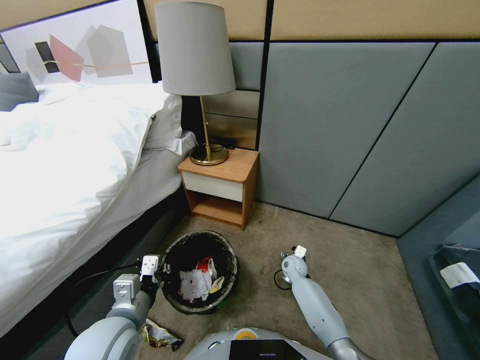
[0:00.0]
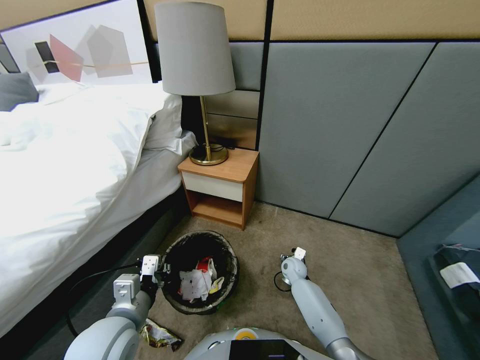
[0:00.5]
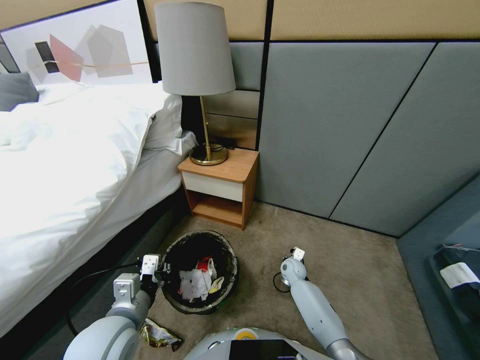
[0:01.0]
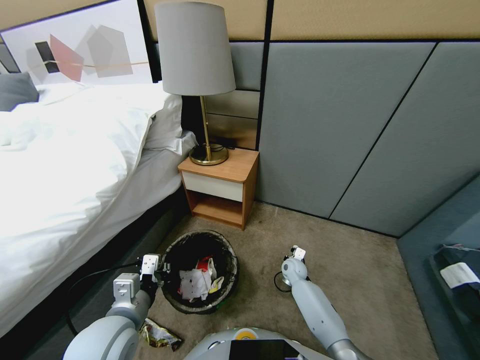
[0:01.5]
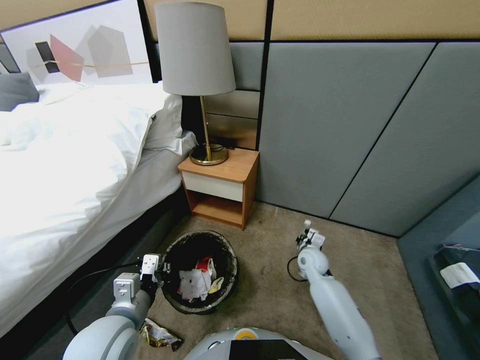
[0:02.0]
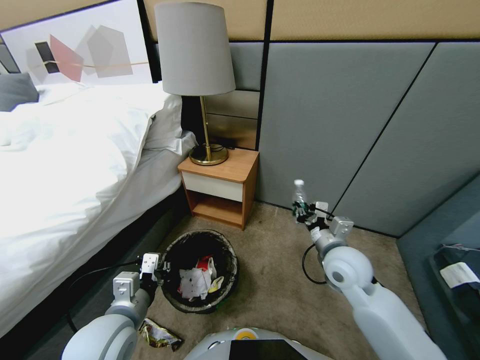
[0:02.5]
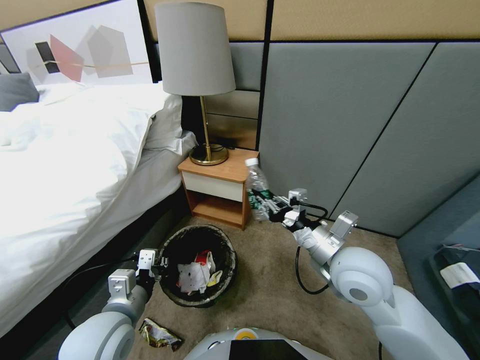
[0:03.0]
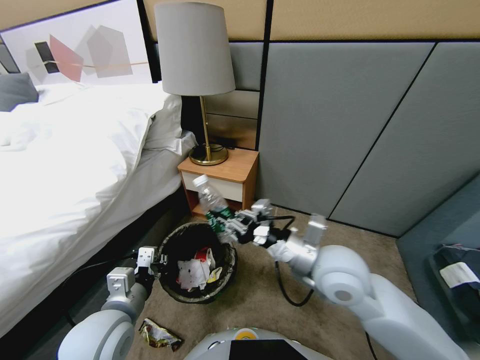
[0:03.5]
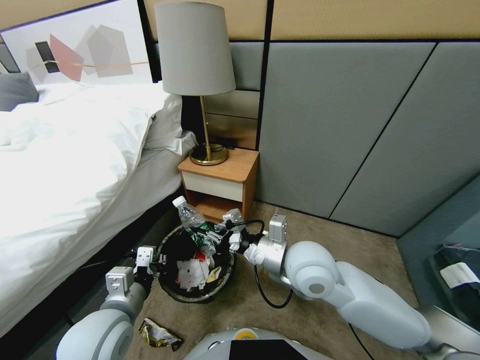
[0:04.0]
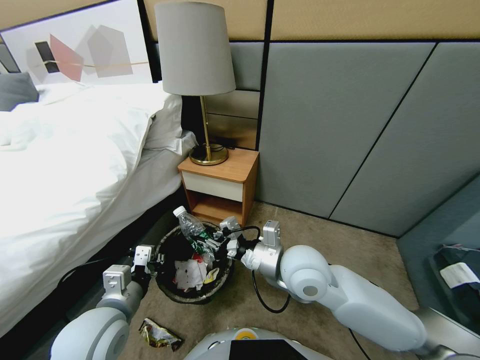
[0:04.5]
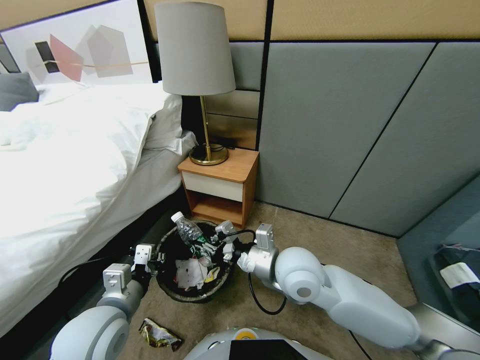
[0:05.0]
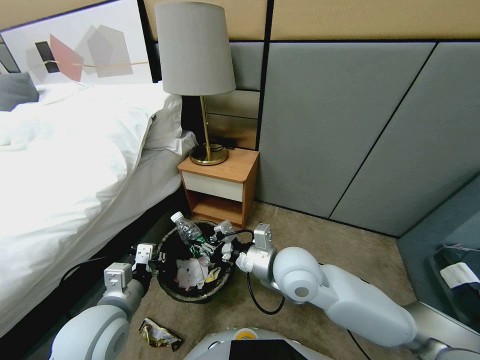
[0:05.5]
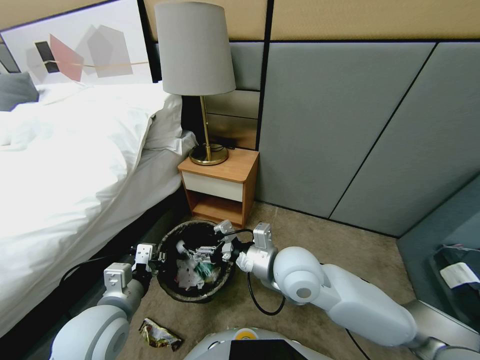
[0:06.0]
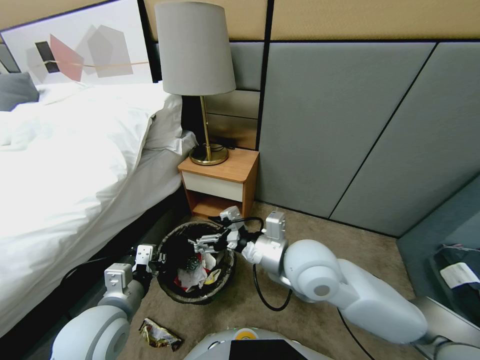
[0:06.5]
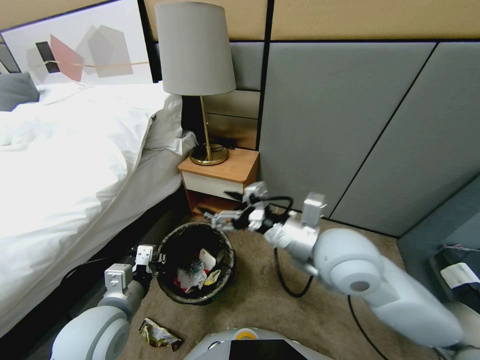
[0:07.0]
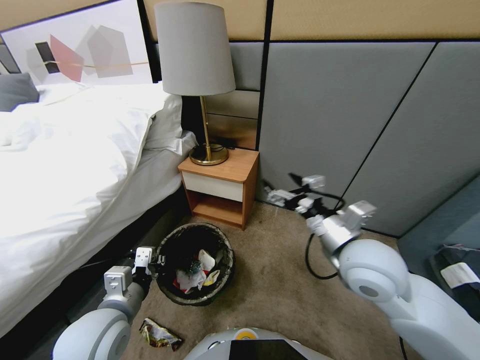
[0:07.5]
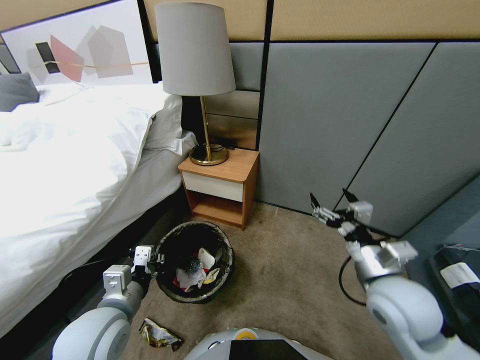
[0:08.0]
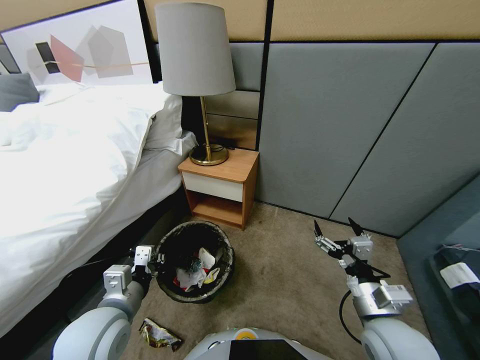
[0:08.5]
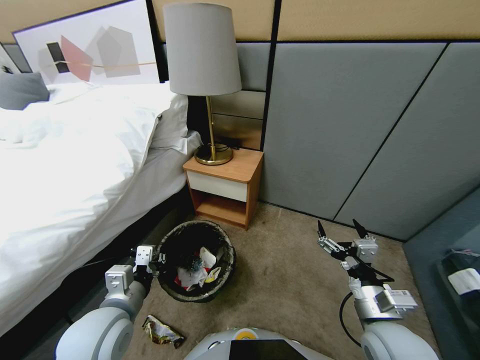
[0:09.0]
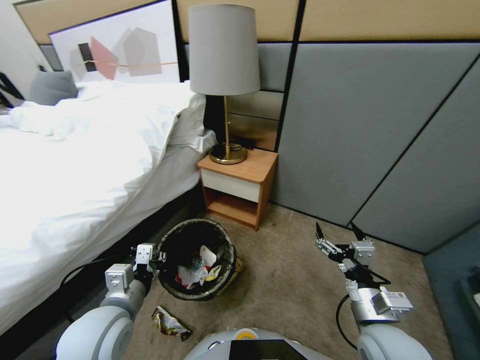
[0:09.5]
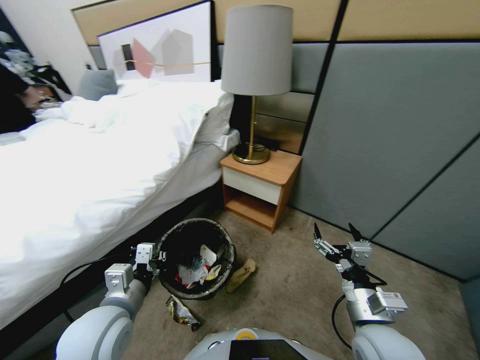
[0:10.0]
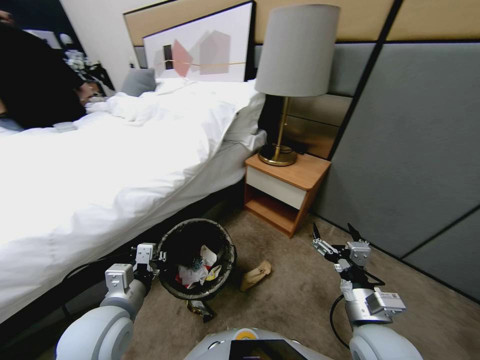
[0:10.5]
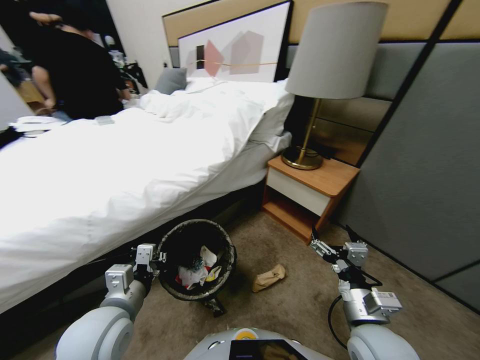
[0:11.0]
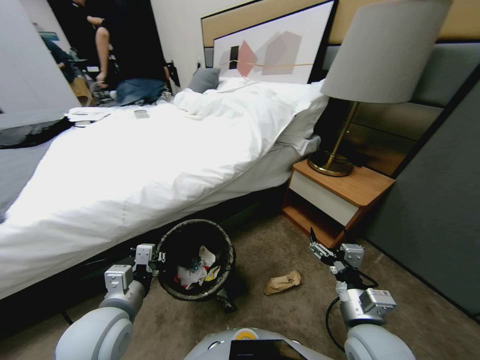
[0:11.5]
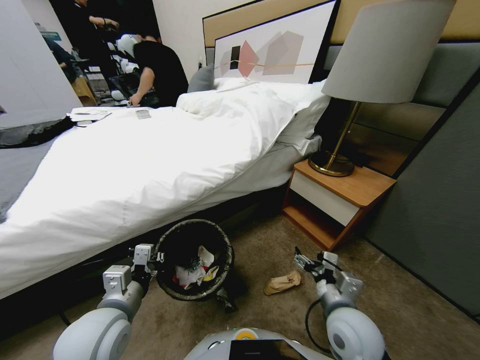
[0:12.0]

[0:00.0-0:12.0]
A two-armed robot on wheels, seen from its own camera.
Task of the whole recording: Pick up the trash bin, then pick up the garbage from the floor and place it into the trash bin.
0.0 to 2.0 s: The right gripper heads upward, covering some 15 cm, and closes.
2.0 to 4.0 s: The right gripper moves upward, to the left and backward, some 25 cm.
4.0 to 6.0 s: The right gripper opens.
6.0 to 8.0 s: The right gripper goes approximately 20 cm to the right and backward.
8.0 to 10.0 s: The right gripper changes place by roughly 5 cm.

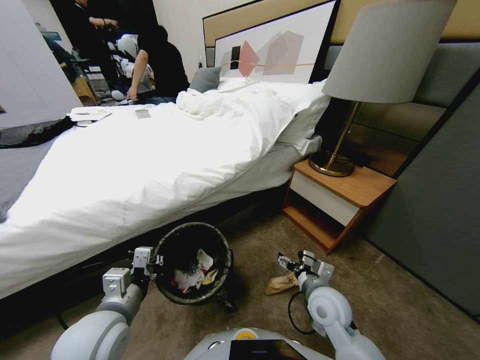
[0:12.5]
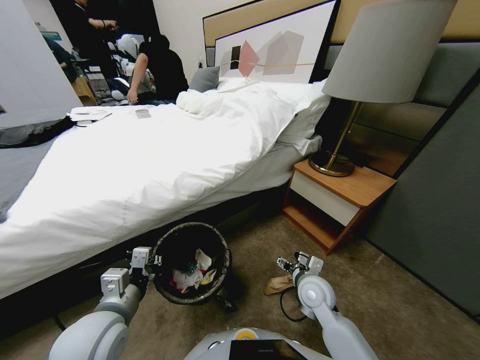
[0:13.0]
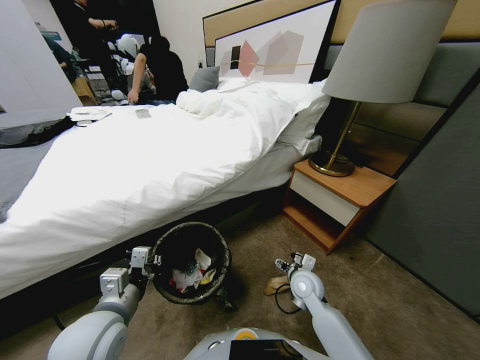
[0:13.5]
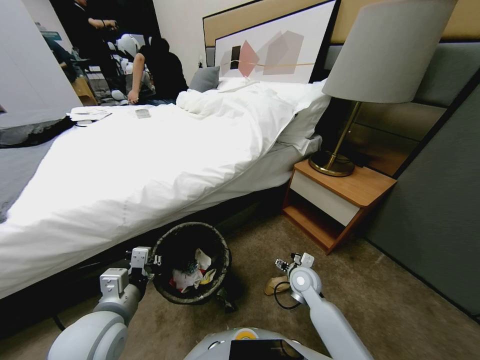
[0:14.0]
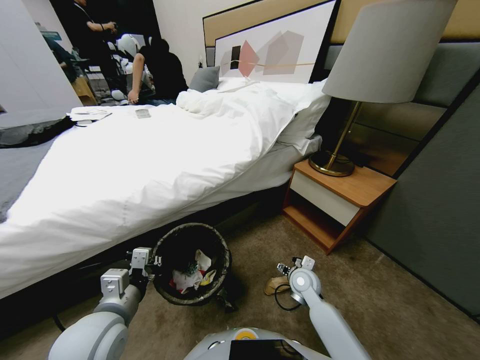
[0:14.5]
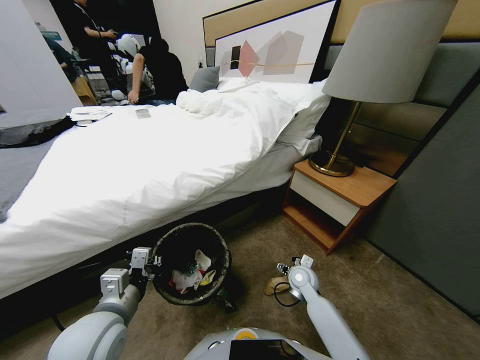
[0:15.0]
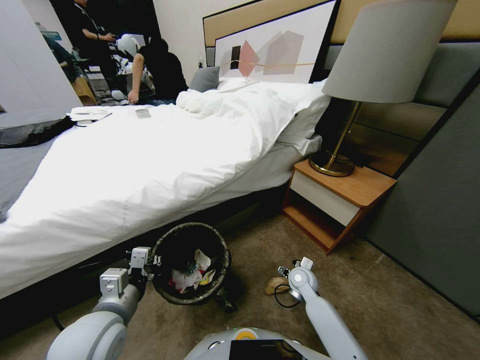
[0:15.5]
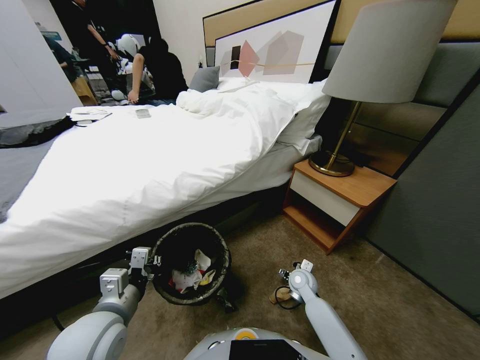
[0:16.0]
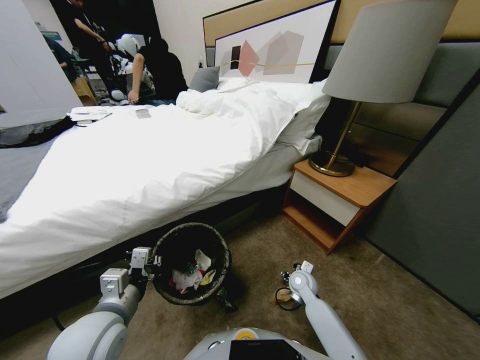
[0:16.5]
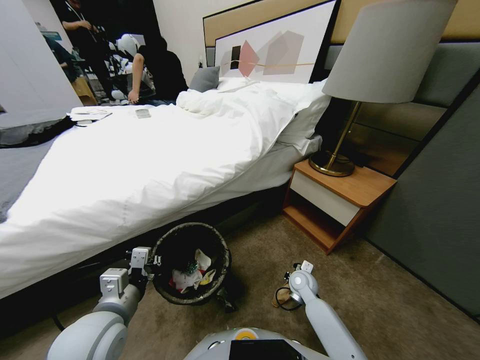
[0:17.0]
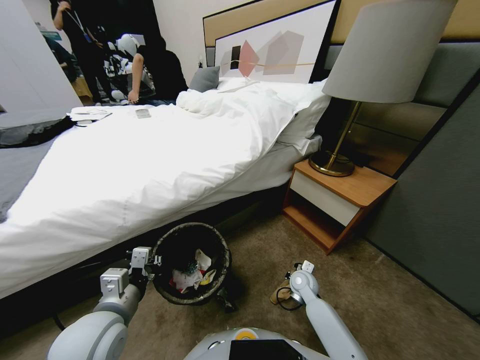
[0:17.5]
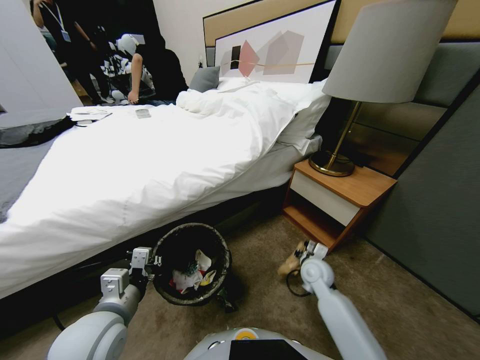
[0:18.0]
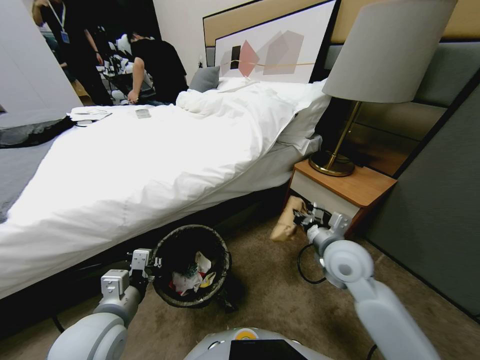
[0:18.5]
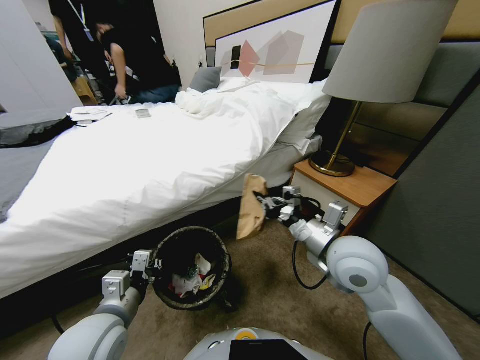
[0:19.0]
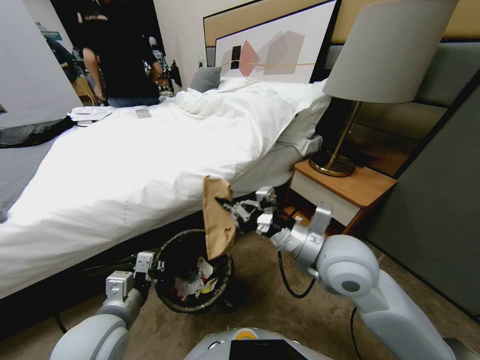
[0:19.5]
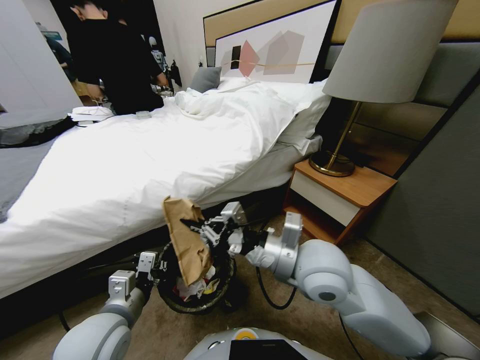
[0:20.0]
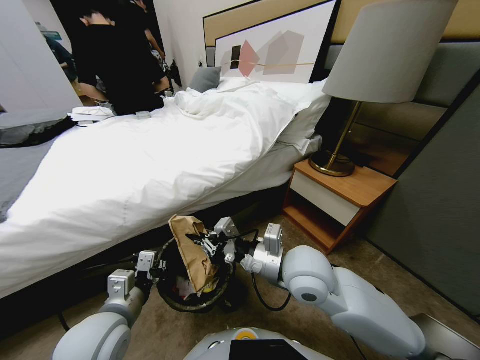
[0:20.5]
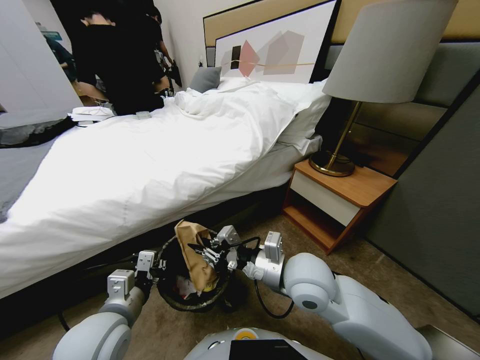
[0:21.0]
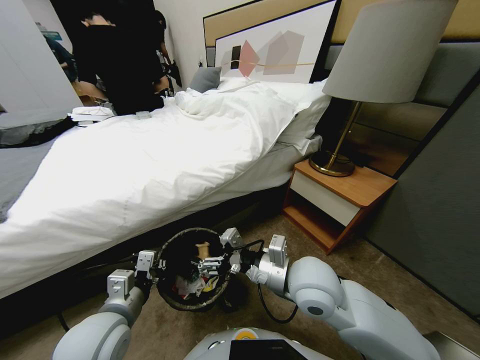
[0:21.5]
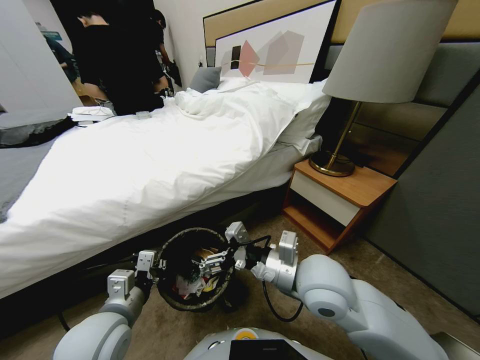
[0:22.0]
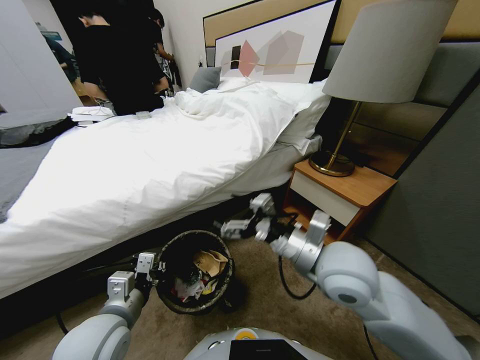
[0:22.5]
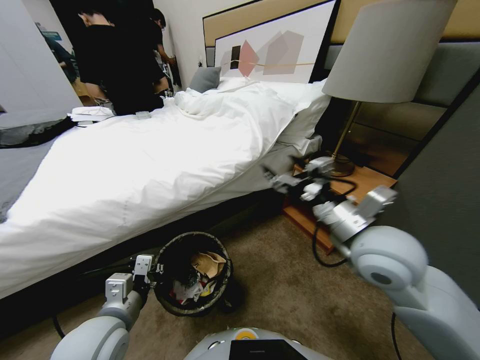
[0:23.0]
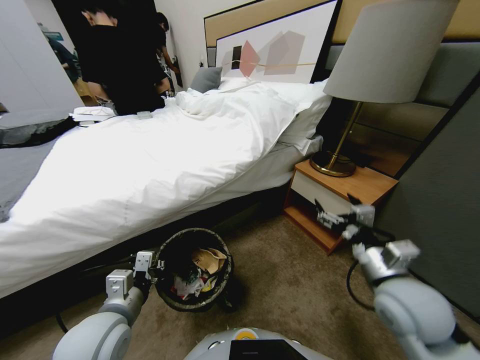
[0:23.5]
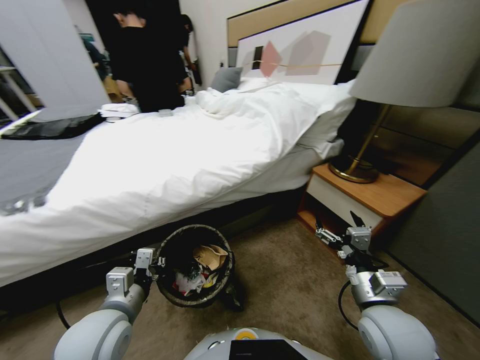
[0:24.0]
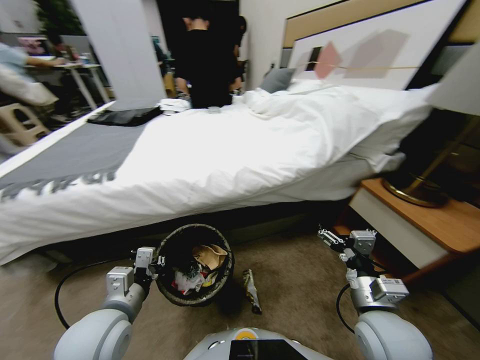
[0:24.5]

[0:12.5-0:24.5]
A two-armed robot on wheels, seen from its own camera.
Task of the whole recording: Pick up the trash bin, then pick up the garbage from the floor and place it into the trash bin.
12.5 to 14.5 s: The right gripper shifts approximately 10 cm downward and forward.
14.5 to 16.5 s: The right gripper heads downward, covering approximately 5 cm.
16.5 to 18.5 s: The right gripper goes approximately 30 cm upward, and closes.
18.5 to 20.5 s: The right gripper heads to the left, covering approximately 10 cm.
20.5 to 22.5 s: The right gripper heads to the right, covering about 5 cm, and opens its fingers.
22.5 to 24.5 s: The right gripper travels downward, backward and to the right by roughly 15 cm.

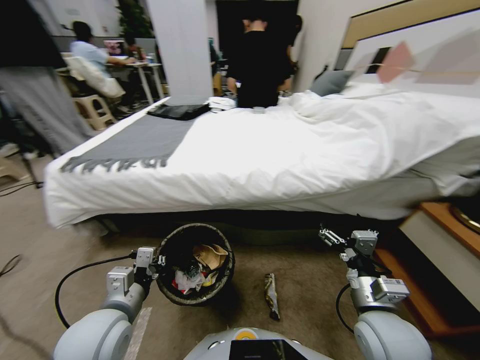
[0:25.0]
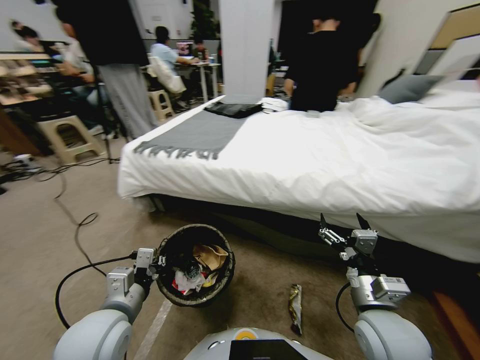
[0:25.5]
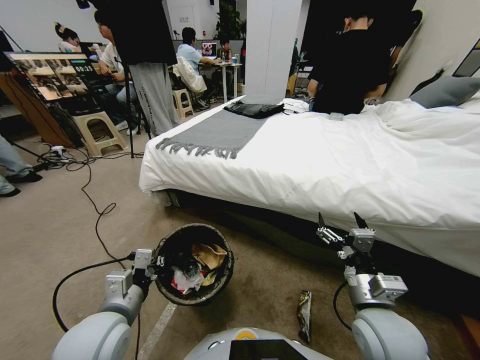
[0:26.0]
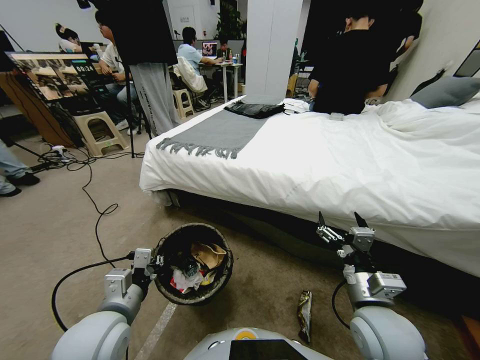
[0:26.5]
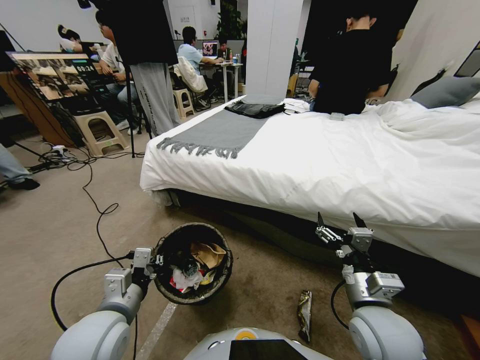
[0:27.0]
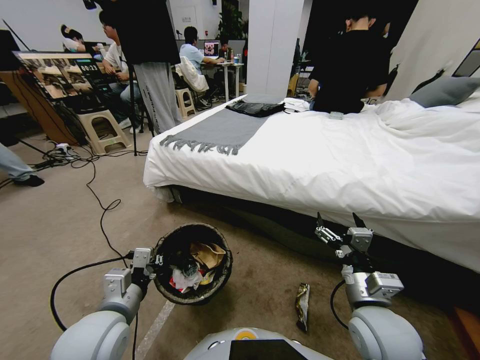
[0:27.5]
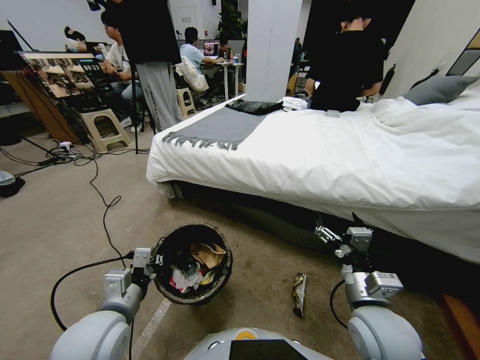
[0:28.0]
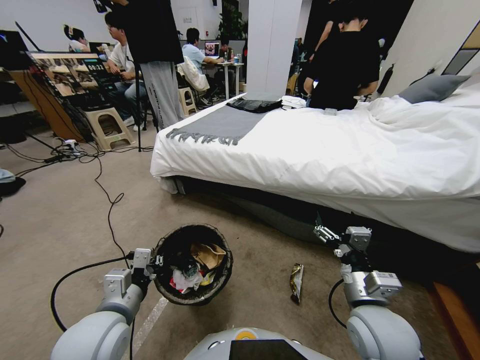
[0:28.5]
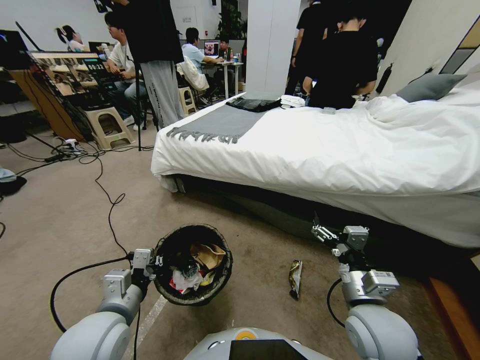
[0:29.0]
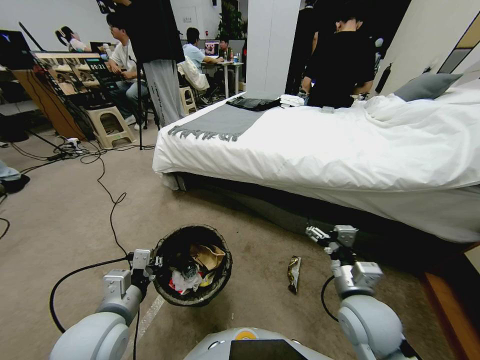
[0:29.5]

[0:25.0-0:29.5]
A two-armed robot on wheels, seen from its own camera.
Task of the whole recording: Pick up the trash bin, then pick up the garbage from the floor and place it into the trash bin.
27.0 to 29.5 s: The right gripper ends up about 5 cm from where it was.
